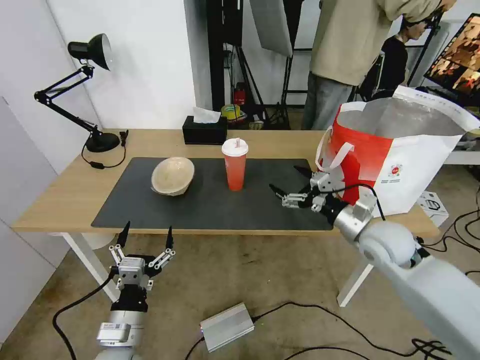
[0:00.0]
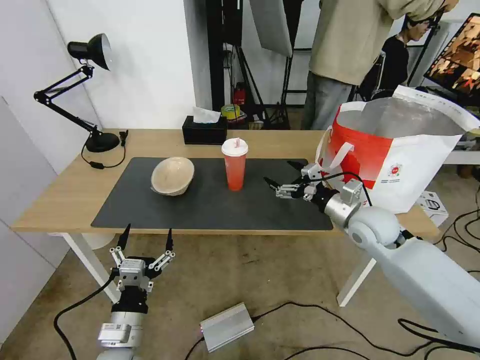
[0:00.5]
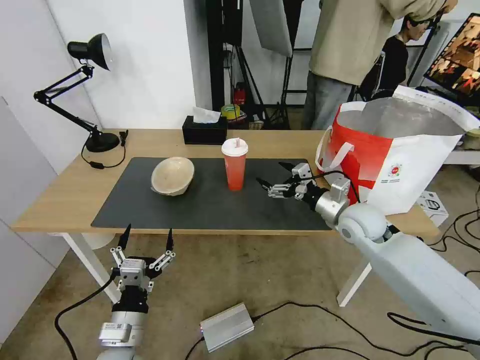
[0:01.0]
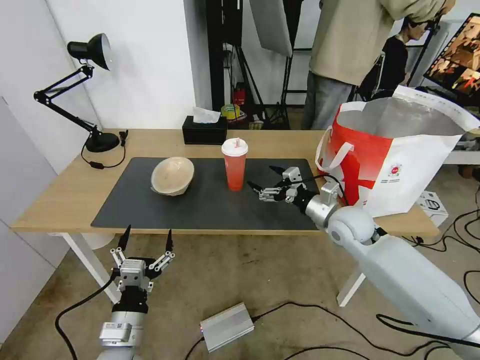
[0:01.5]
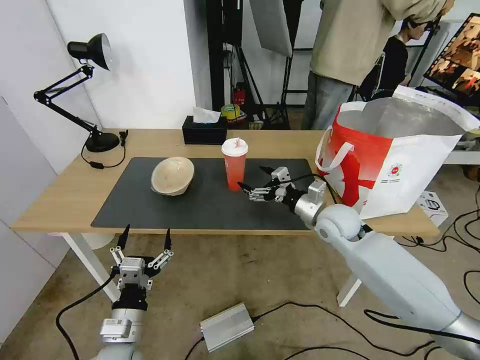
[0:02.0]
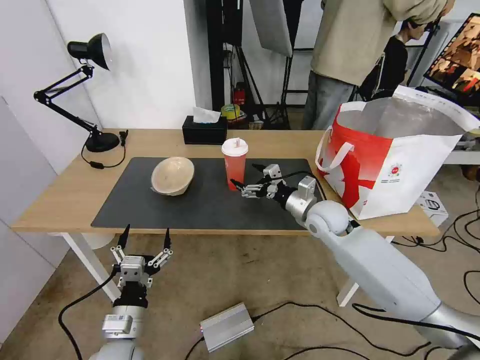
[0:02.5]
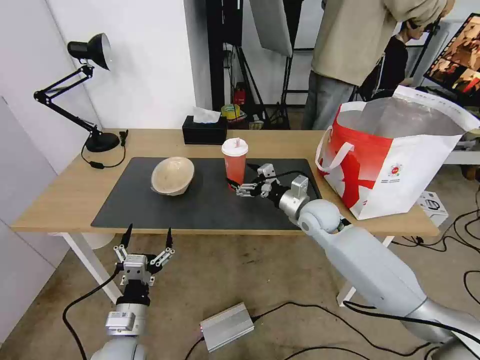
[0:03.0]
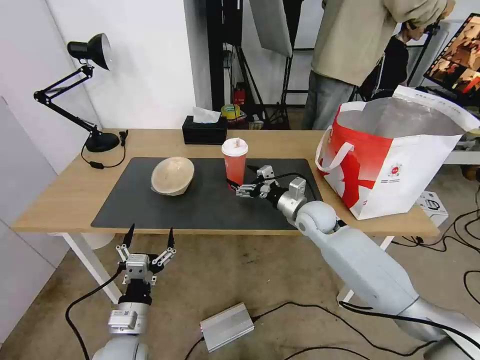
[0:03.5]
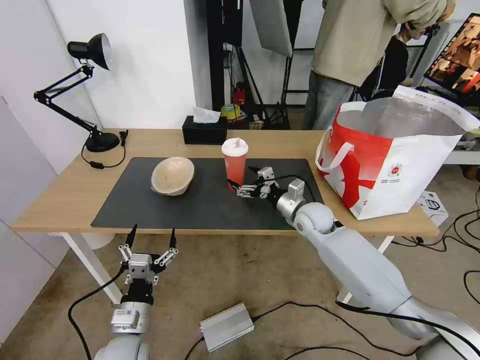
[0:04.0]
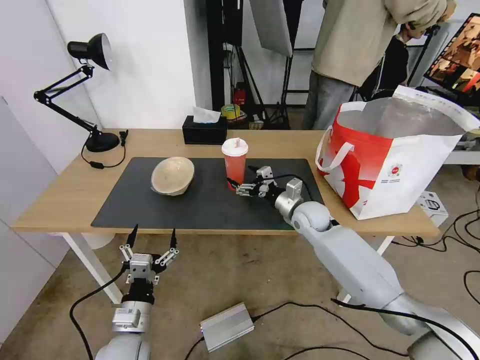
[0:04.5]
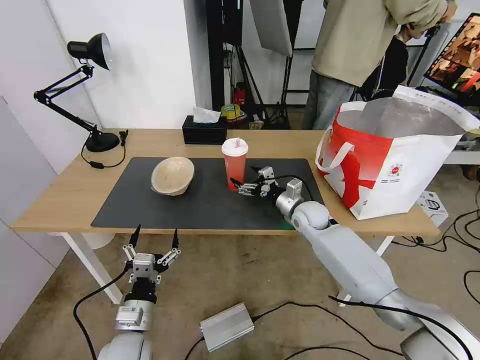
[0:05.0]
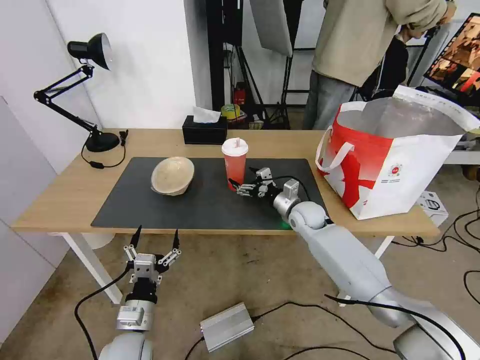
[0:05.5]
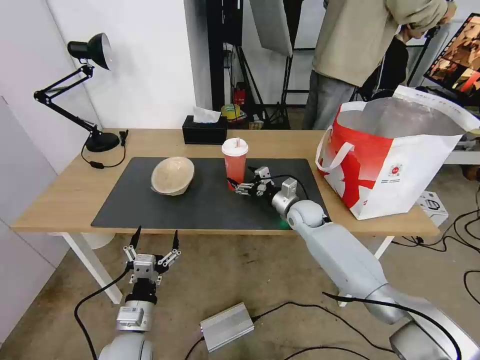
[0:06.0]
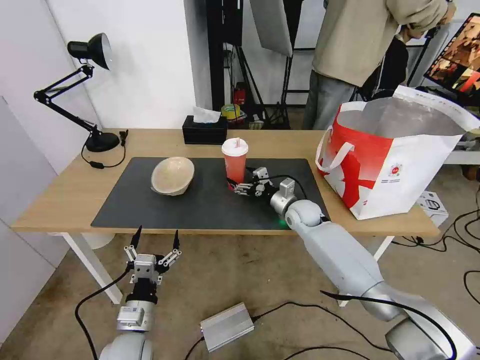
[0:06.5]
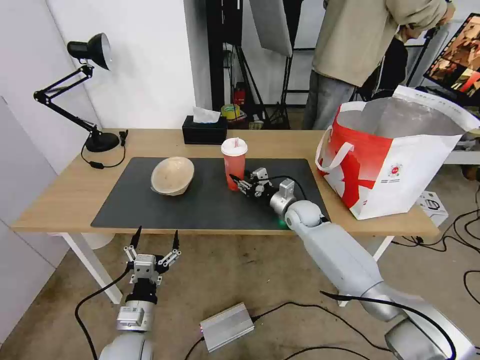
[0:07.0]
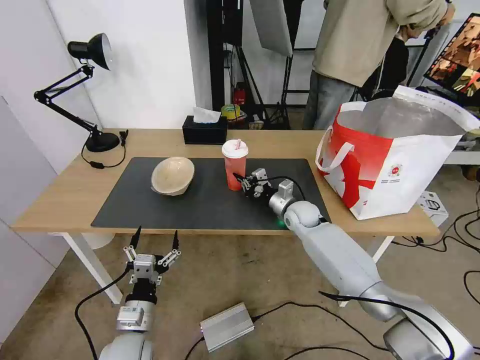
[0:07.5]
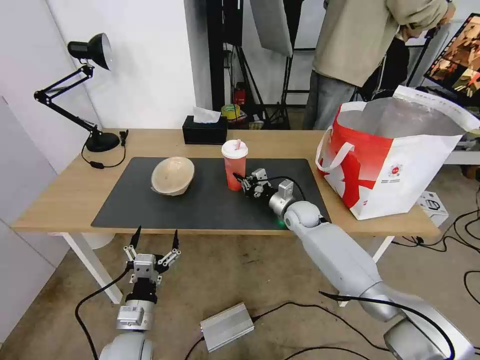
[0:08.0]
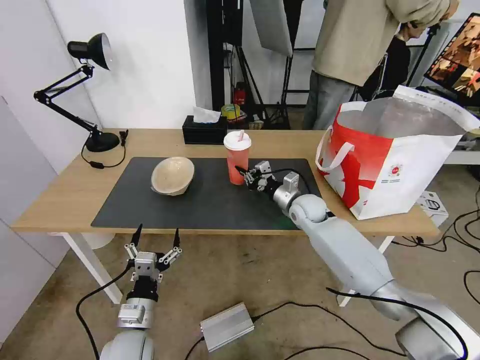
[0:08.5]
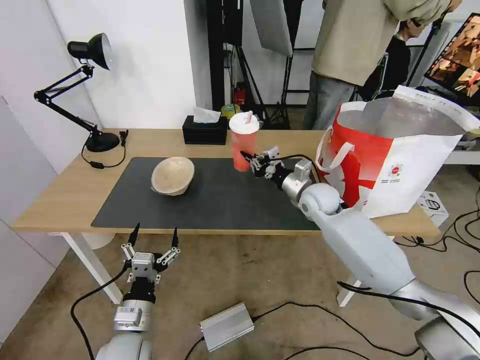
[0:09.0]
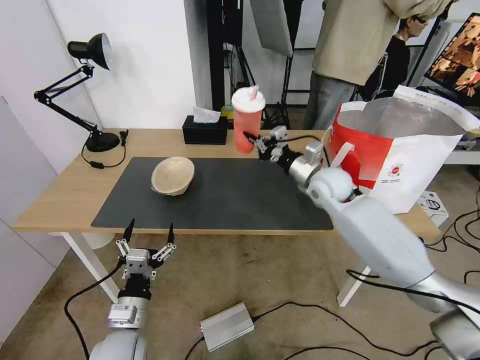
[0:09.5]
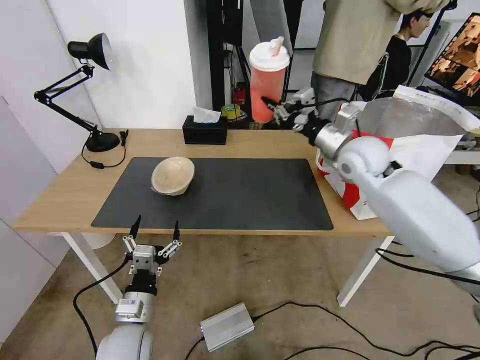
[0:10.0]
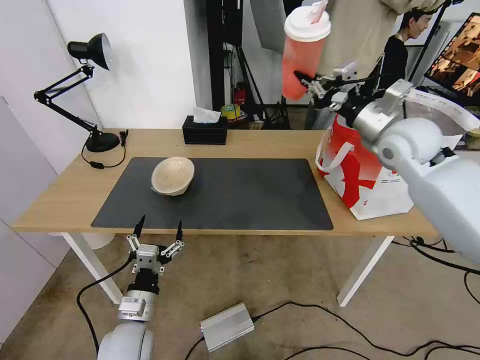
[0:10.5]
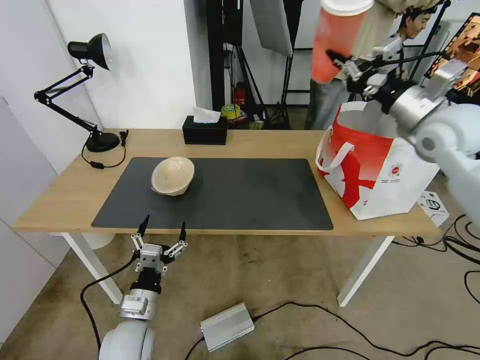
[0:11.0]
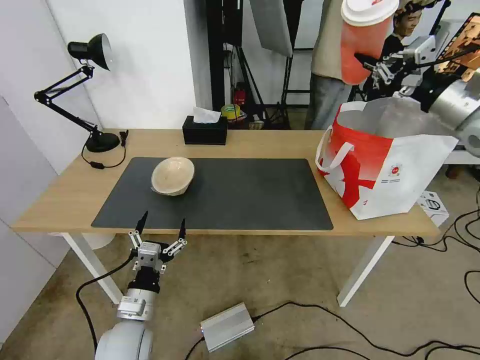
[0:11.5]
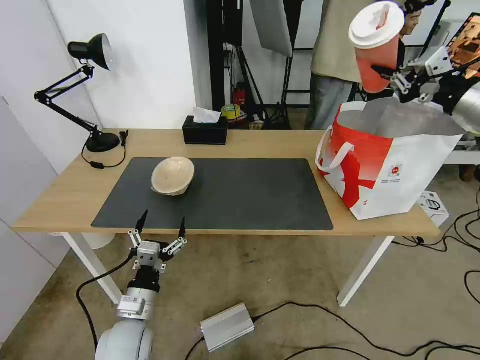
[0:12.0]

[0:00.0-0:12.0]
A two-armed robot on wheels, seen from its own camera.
Task of the whole recording: Pick up the trash from the table and place it into the takeout bag.
0.0 to 2.0 s: The right gripper moves forward and to the left, approximately 10 cm.
2.0 to 4.0 s: The right gripper moves some 5 cm.
4.0 to 6.0 s: The grippers move only a little.
6.0 to 8.0 s: The right gripper closes.
8.0 to 10.0 s: The right gripper shifts about 25 cm upward.
10.0 to 12.0 s: The right gripper heads to the right and upward, covering approximately 25 cm.

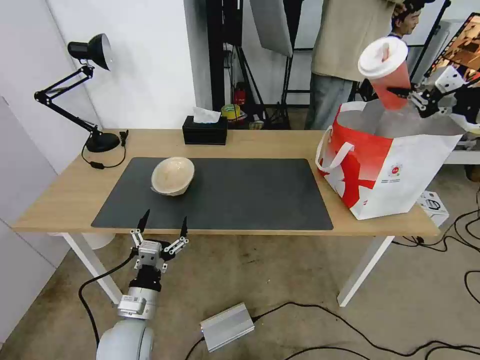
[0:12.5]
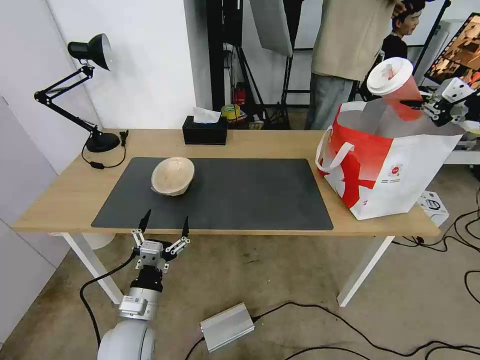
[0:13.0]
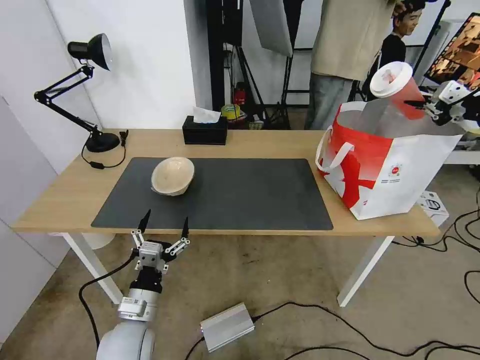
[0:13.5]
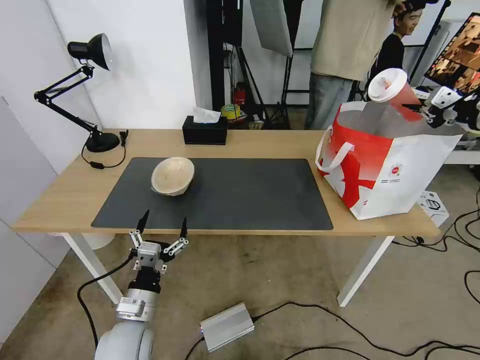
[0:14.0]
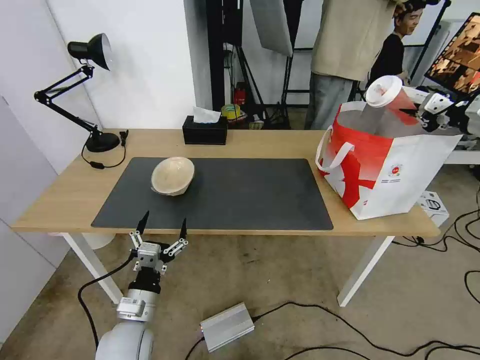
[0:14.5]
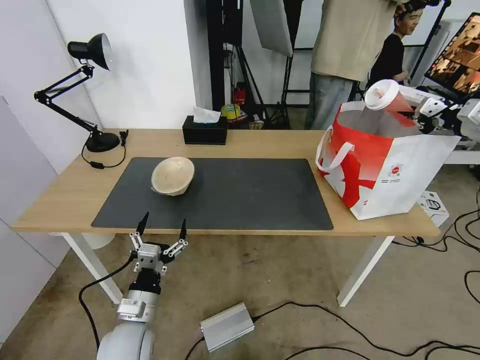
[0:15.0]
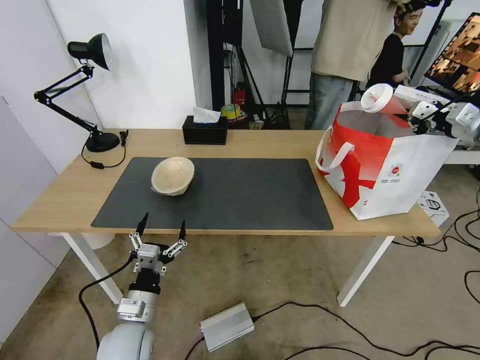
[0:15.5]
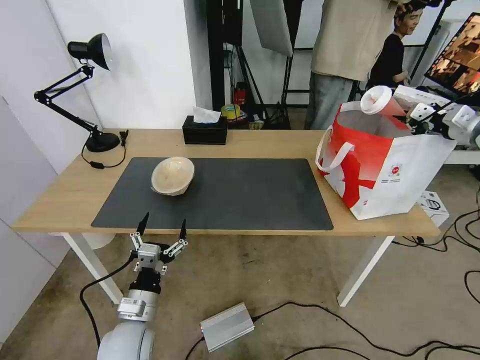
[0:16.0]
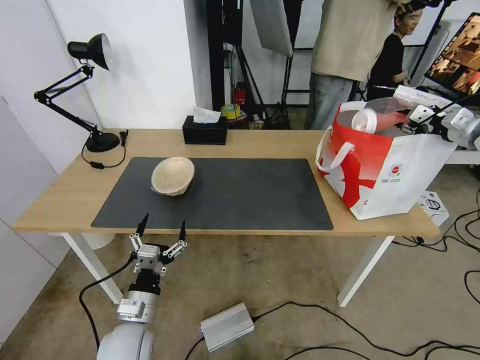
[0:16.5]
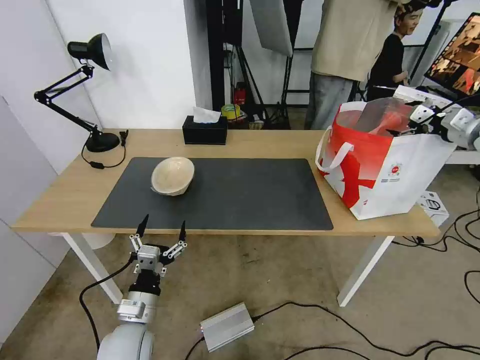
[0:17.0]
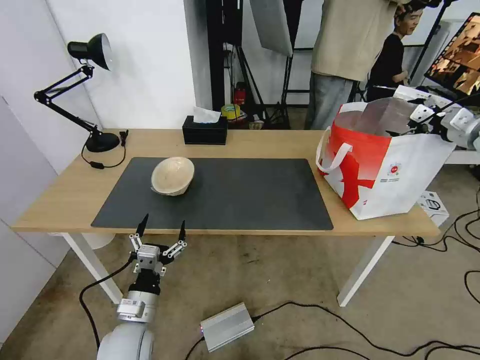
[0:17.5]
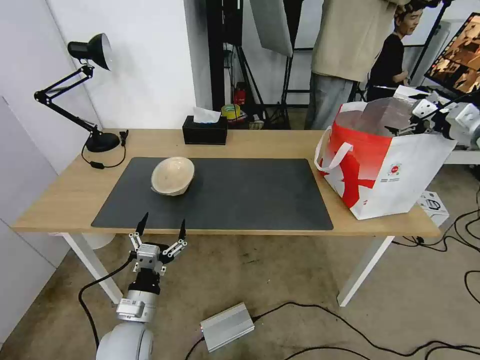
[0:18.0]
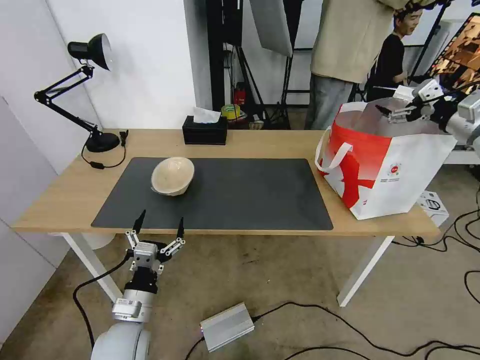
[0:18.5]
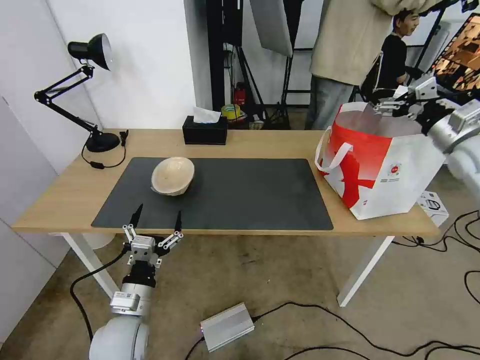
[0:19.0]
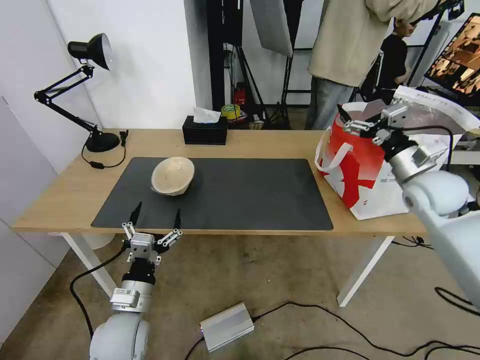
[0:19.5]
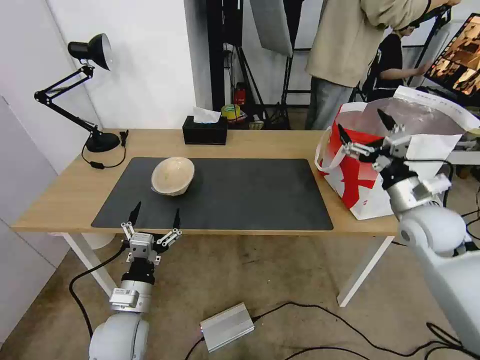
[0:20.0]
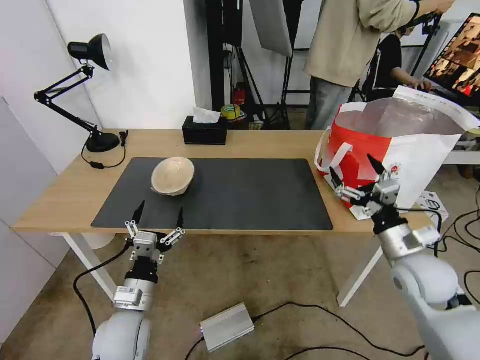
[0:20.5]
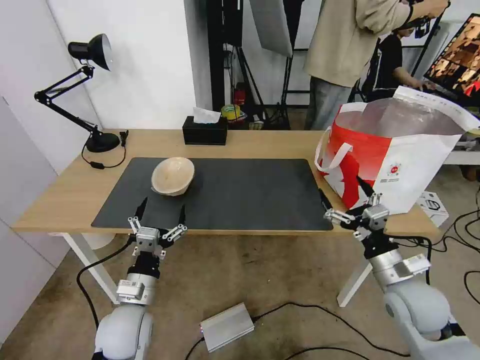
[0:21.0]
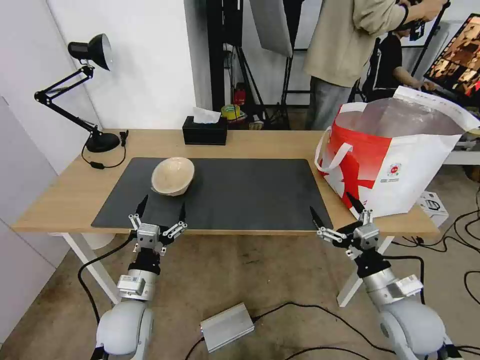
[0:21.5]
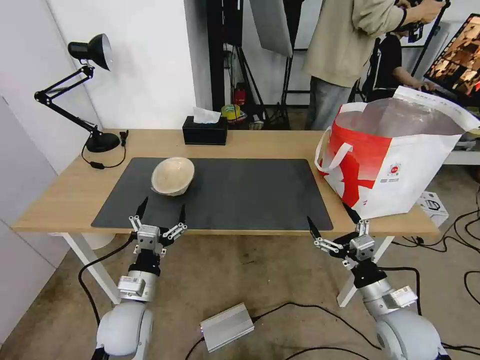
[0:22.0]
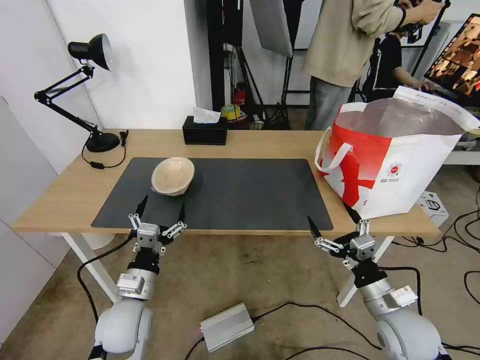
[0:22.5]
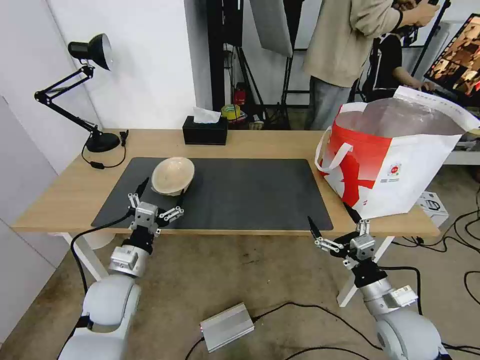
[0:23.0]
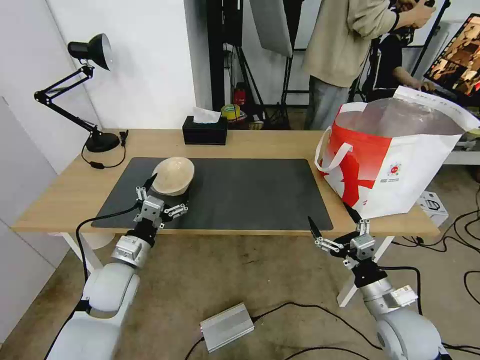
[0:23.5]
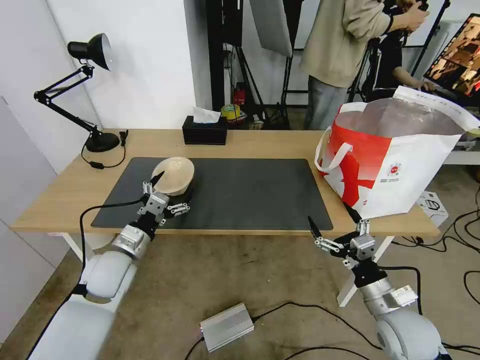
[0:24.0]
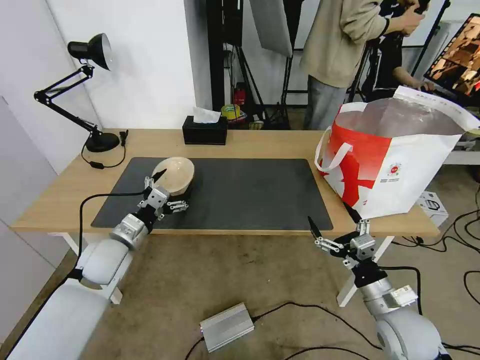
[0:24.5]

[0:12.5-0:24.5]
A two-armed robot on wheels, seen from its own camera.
Task of the whole recording: Pick up the trash from the table and place it into the takeout bag.
12.5 to 14.5 s: The right gripper heads forward and to the right, covering some 5 cm.
14.5 to 16.5 s: The right gripper shifts by about 5 cm, and opens.
16.5 to 18.5 s: The right gripper ends up roughly 5 cm from where it was, and opens its fingers.
18.5 to 20.5 s: The right gripper moves downward, backward and to the left, roughly 30 cm.
20.5 to 22.5 s: The right gripper is displaced backward and downward by roughly 10 cm.
22.5 to 24.5 s: The left gripper goes roughly 15 cm forward, to the left and upward.

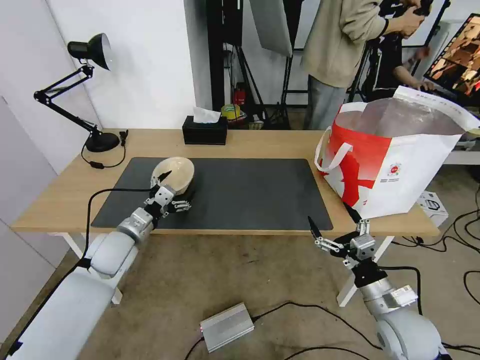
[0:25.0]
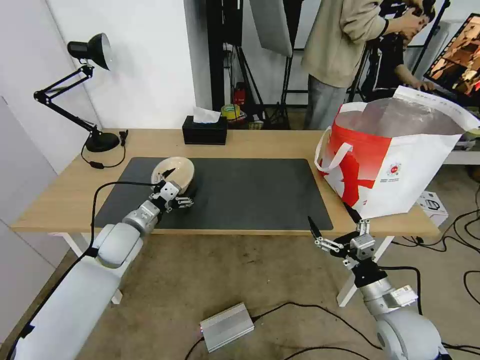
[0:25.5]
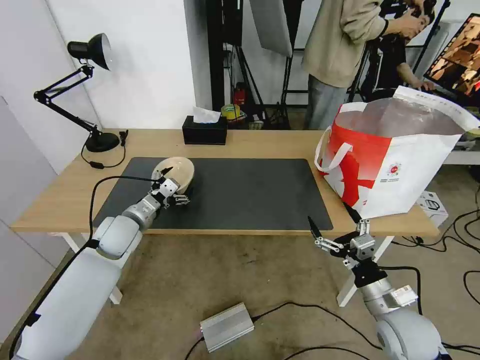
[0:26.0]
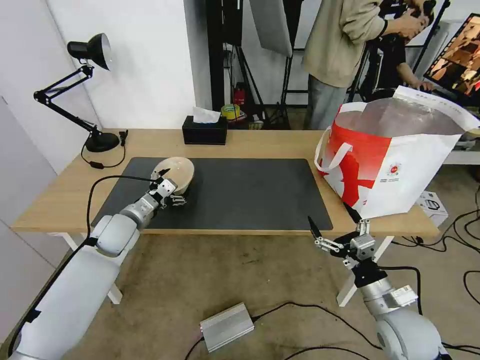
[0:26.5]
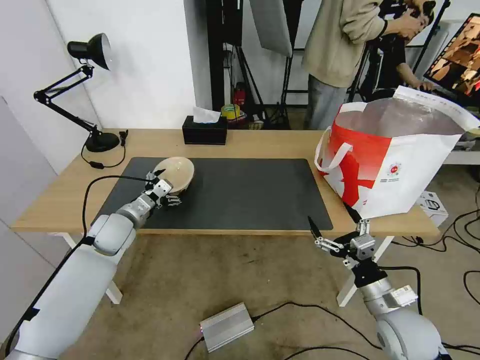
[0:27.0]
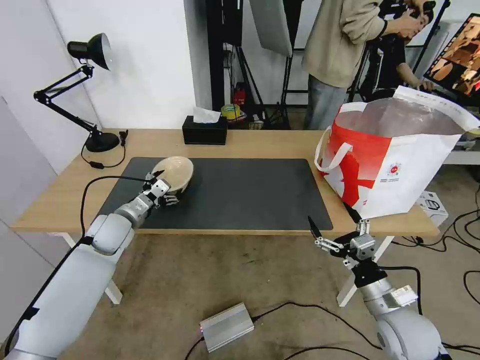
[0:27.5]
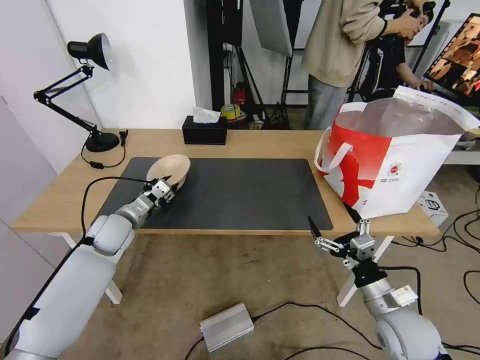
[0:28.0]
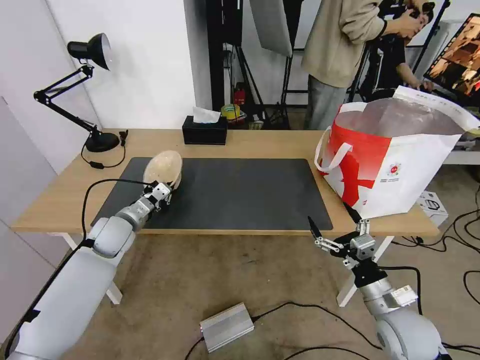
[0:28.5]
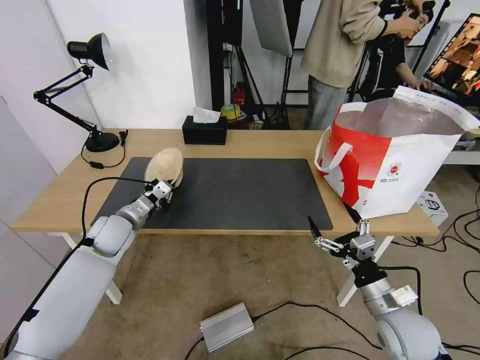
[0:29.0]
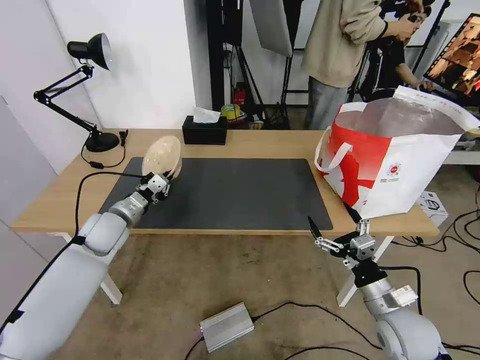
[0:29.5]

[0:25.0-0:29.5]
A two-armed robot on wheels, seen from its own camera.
Task of the whole recording: Pick up the trash from the table and place it into the takeout bag.
25.0 to 27.0 s: The left gripper goes approximately 5 cm forward.
27.0 to 29.5 s: The left gripper closes up.
